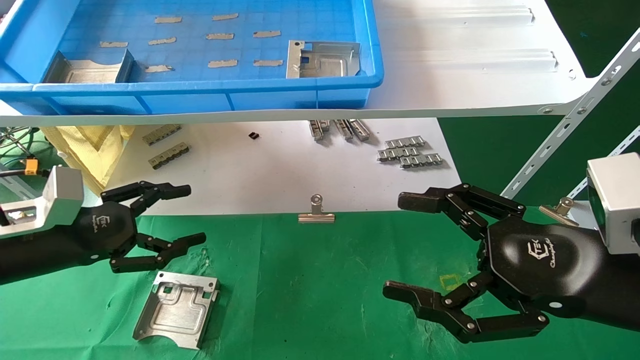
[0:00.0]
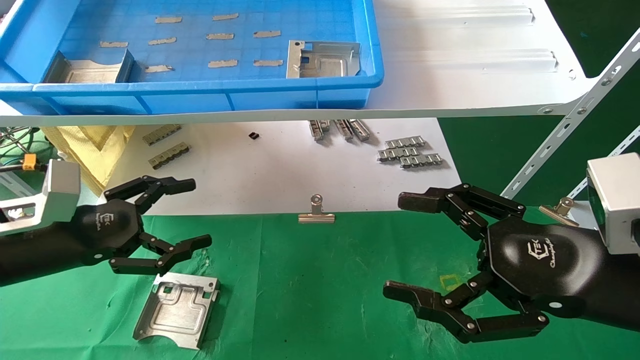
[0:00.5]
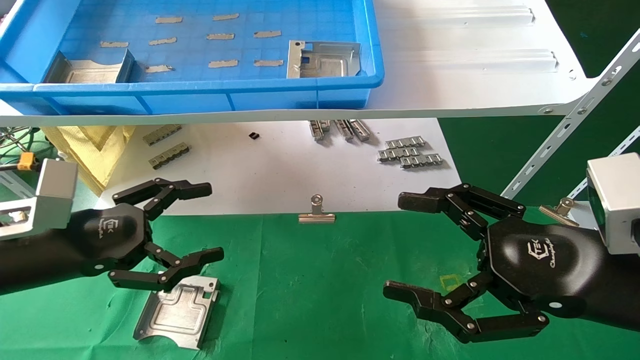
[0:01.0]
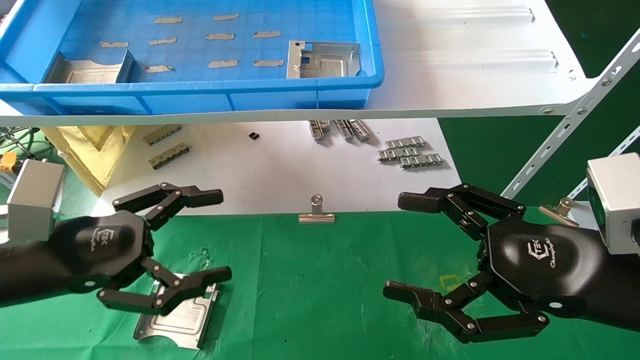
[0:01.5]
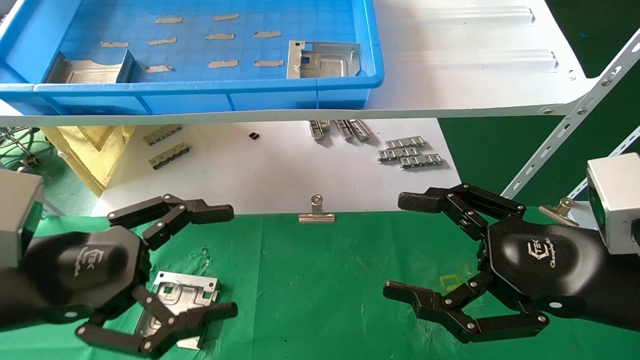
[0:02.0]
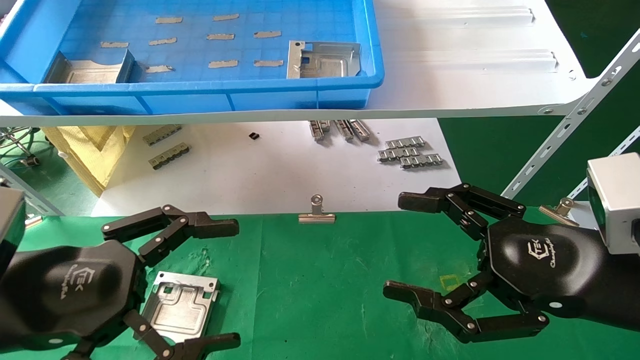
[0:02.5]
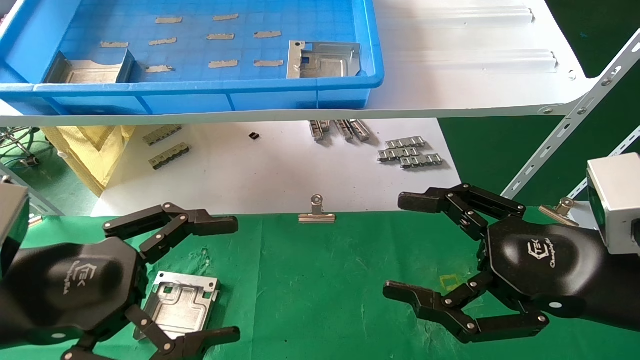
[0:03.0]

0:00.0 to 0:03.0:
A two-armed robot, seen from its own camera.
Task of the whole recording: use the mechanical arm to pick up the parts and place them on the table.
0:00.0 to 0:01.5: The left gripper shifts some 10 cm backward and to the right.
0:01.5 to 0:03.0: The left gripper moves backward, about 5 cm.
